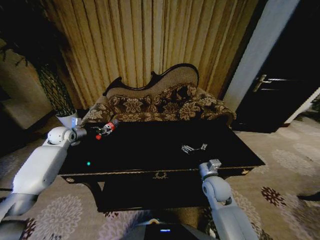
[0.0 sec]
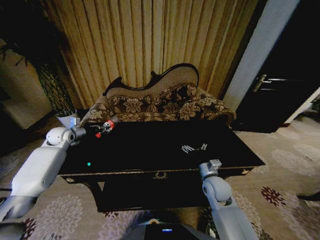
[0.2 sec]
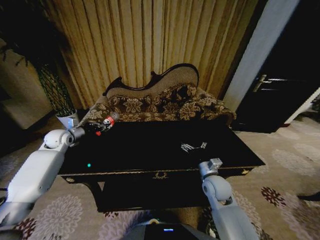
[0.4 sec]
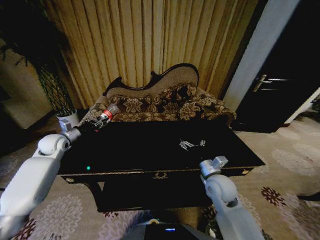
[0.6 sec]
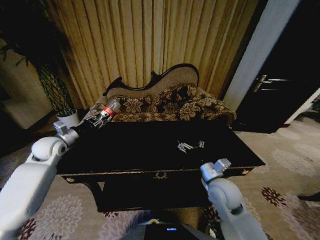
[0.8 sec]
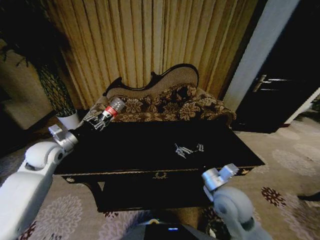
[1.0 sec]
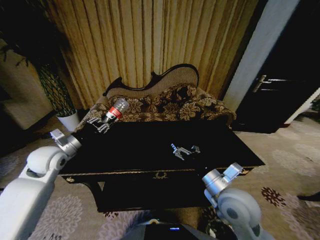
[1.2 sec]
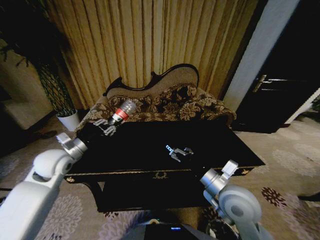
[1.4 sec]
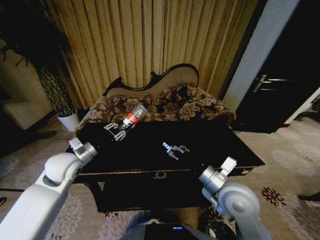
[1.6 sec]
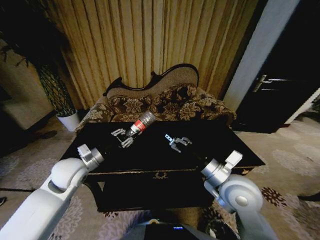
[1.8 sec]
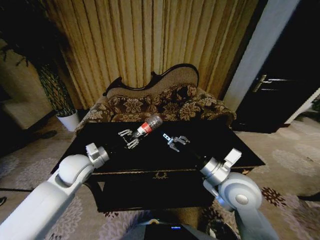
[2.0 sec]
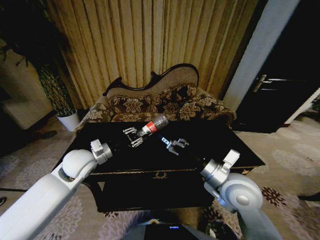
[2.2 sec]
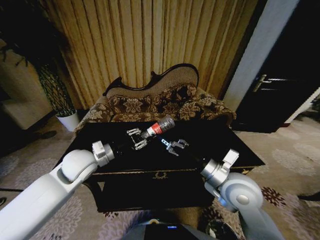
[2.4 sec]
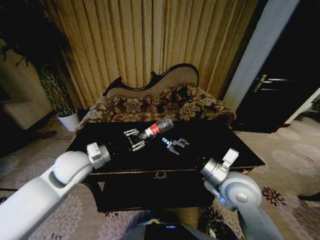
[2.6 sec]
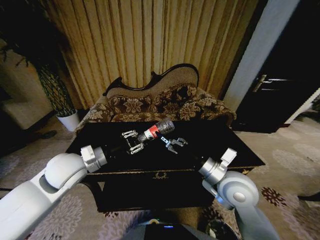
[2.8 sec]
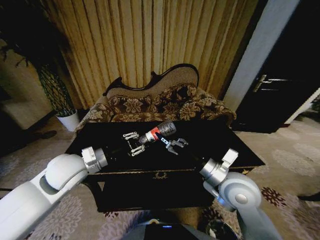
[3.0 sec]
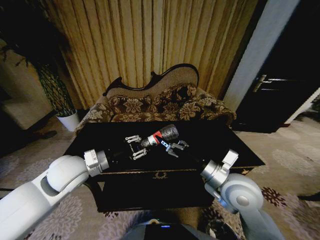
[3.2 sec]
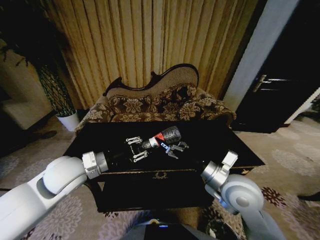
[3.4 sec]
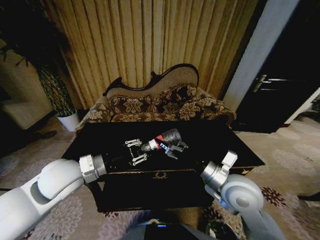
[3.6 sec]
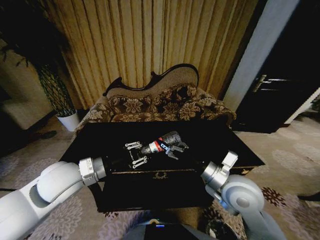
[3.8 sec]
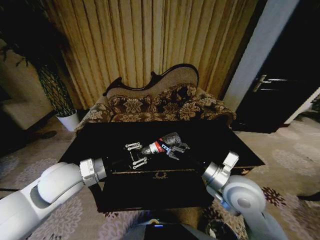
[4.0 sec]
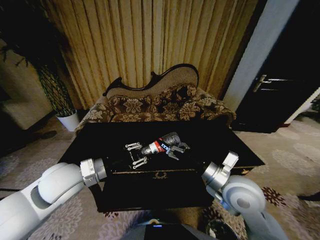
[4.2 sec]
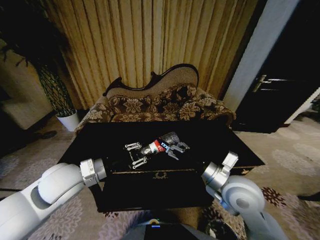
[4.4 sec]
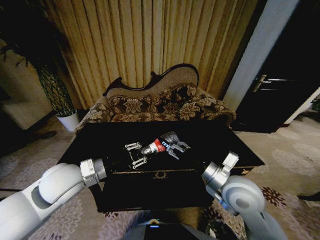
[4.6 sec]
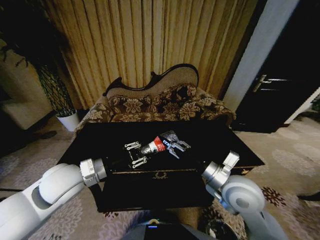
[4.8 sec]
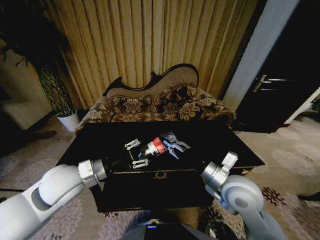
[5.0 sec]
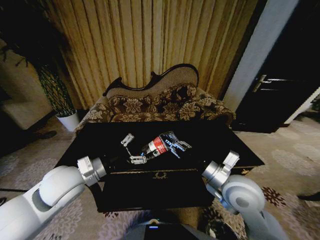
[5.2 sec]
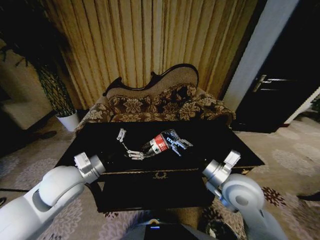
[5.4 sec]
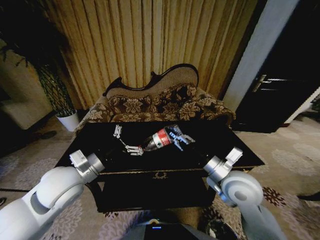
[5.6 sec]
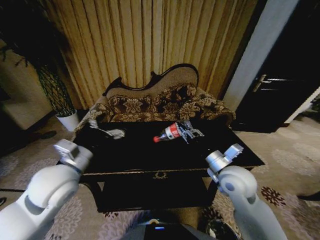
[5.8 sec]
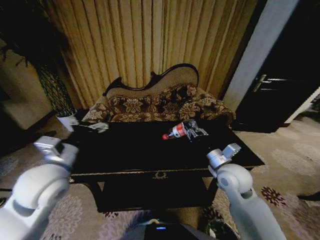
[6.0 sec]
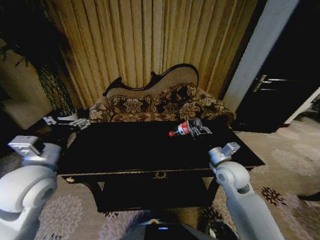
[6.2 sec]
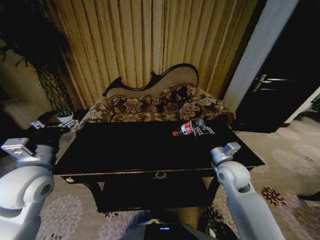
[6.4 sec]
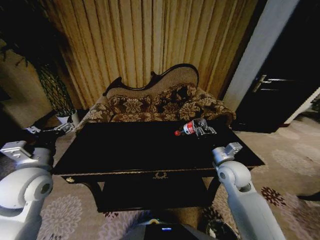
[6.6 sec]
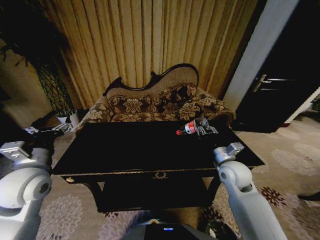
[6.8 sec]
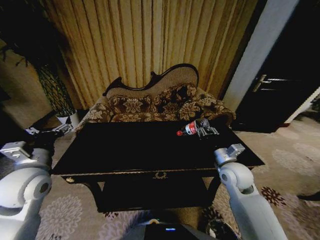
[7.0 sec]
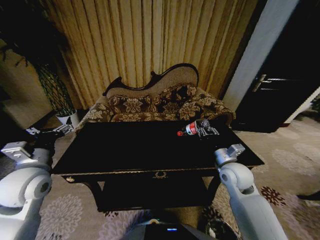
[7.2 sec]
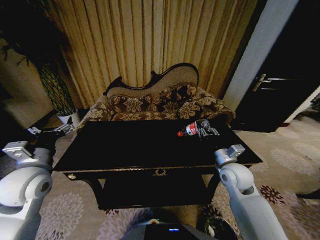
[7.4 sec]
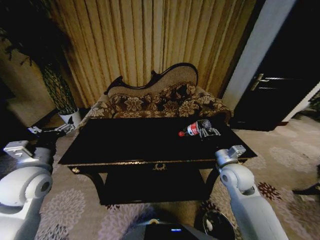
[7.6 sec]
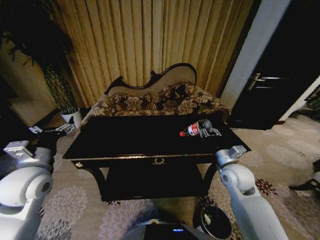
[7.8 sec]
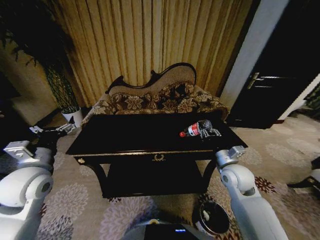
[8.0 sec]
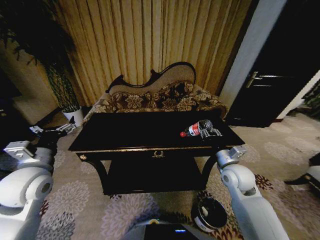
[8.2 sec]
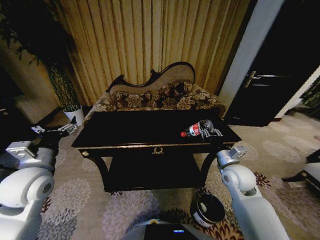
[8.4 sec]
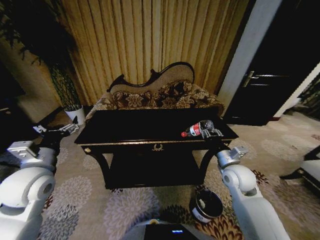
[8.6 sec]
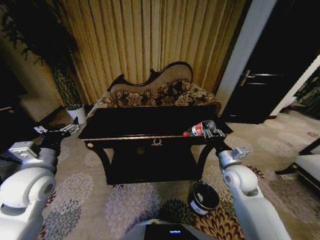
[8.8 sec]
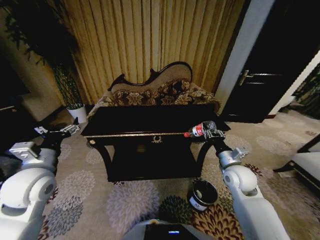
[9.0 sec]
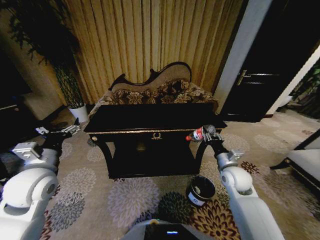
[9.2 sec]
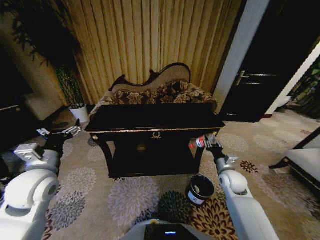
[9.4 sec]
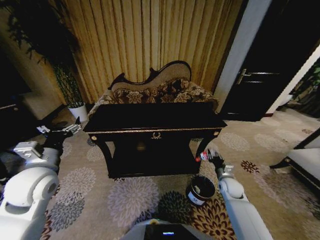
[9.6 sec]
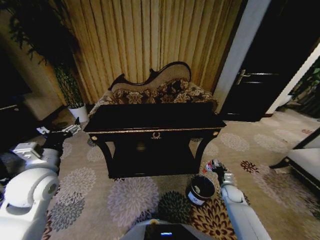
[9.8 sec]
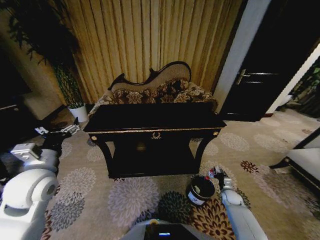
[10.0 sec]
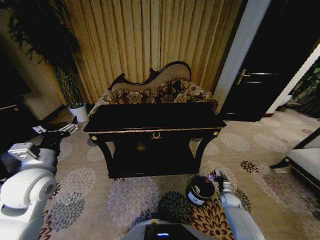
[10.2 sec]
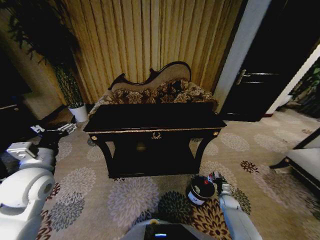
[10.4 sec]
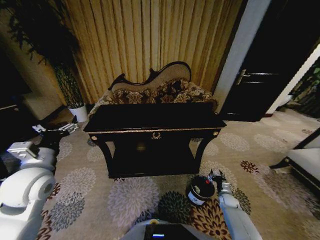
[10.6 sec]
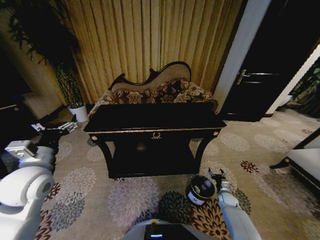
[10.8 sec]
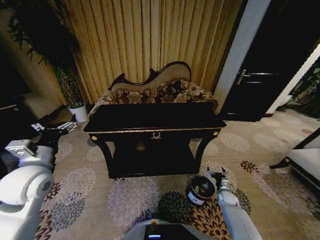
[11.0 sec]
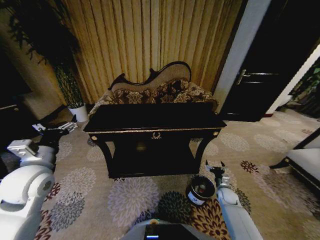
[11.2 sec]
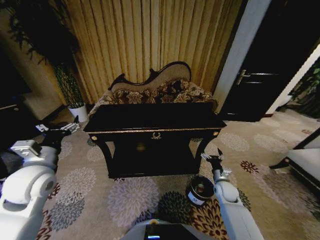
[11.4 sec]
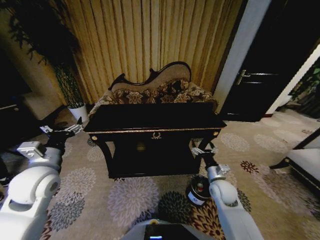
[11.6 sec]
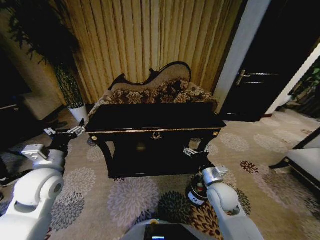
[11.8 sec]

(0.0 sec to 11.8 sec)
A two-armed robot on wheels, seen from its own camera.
Task of the whole recording: Move to the front of the table and place the trash on the table into the trash bin.
0.0 sec - 1.4 sec: The left gripper shifts some 20 cm backward and to the right; the right gripper moves upward and backward, roughly 15 cm.
1.4 sec - 3.0 sec: The left gripper travels to the right by some 10 cm.
3.0 sec - 4.4 sec: The grippers stay close to where they were, moving slightly.
4.4 sec - 6.0 sec: The right gripper goes roughly 5 cm forward, and closes. Meanwhile the left gripper opens.
6.0 sec - 7.4 sec: The left gripper moves to the left, some 5 cm.
8.8 sec - 10.4 sec: The right gripper goes about 35 cm downward.
10.4 sec - 11.8 sec: The right gripper shifts some 35 cm upward and to the left, and opens its fingers.
